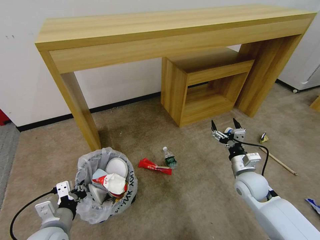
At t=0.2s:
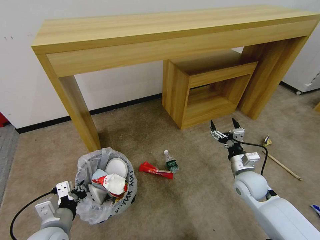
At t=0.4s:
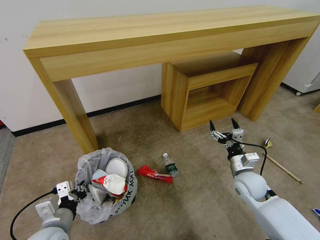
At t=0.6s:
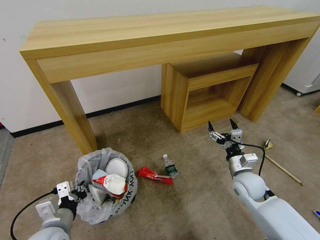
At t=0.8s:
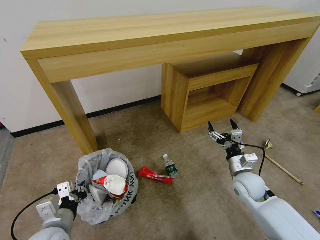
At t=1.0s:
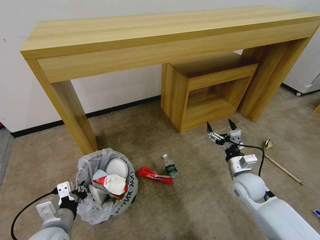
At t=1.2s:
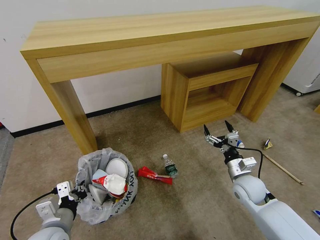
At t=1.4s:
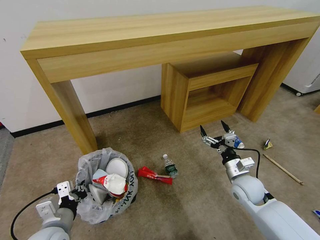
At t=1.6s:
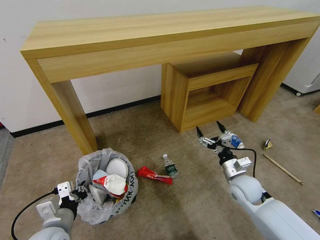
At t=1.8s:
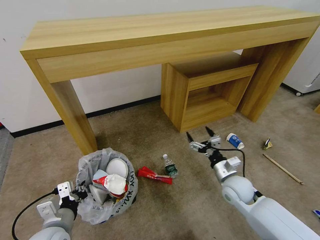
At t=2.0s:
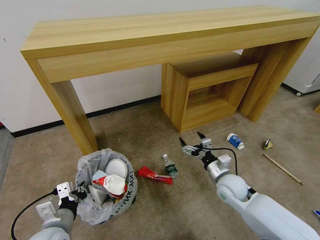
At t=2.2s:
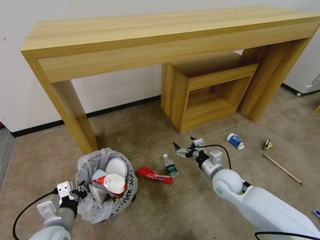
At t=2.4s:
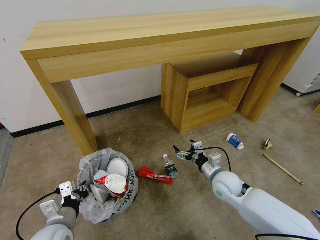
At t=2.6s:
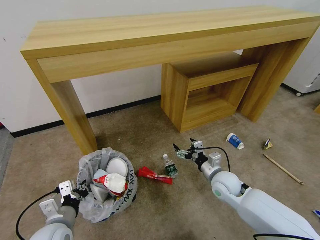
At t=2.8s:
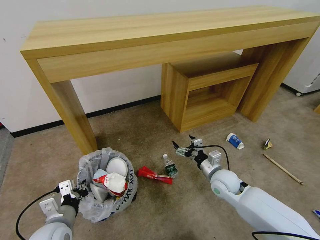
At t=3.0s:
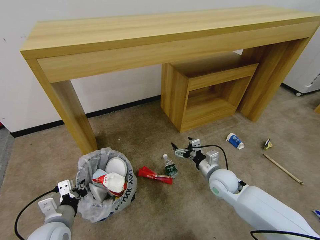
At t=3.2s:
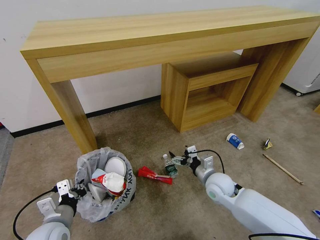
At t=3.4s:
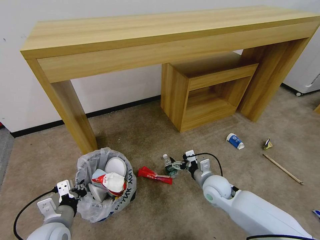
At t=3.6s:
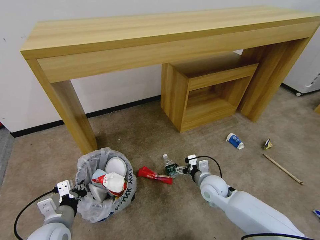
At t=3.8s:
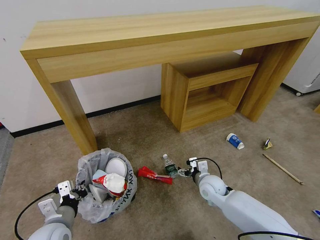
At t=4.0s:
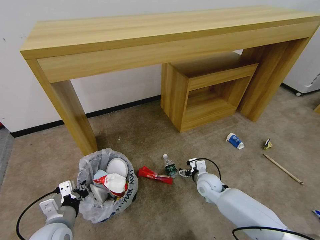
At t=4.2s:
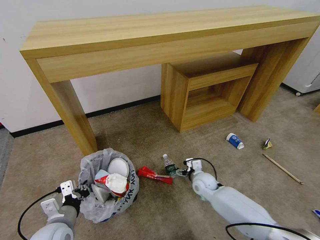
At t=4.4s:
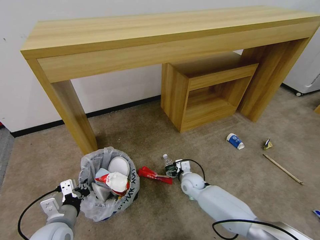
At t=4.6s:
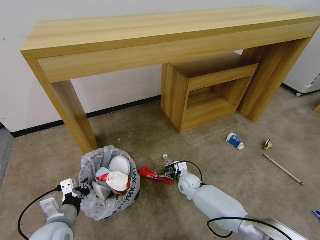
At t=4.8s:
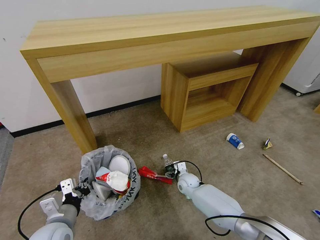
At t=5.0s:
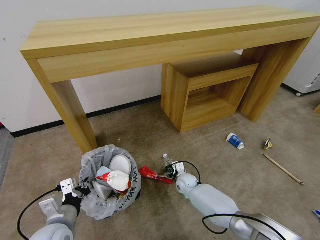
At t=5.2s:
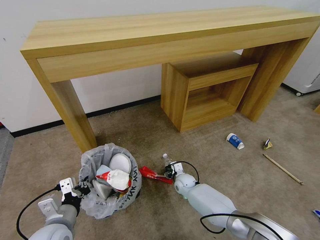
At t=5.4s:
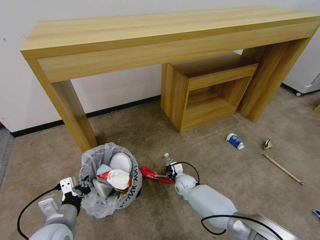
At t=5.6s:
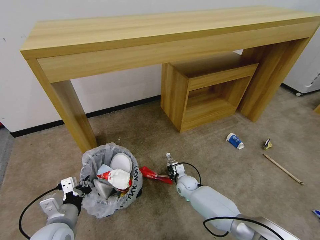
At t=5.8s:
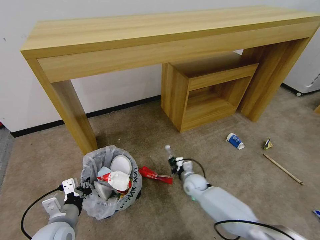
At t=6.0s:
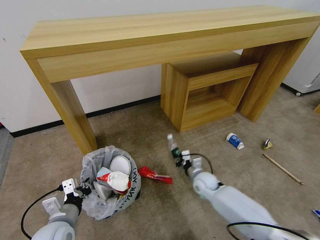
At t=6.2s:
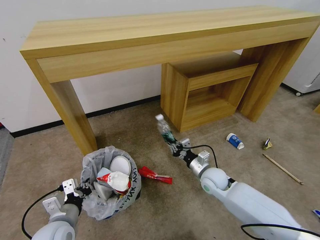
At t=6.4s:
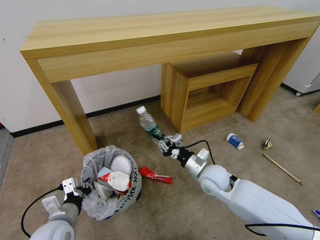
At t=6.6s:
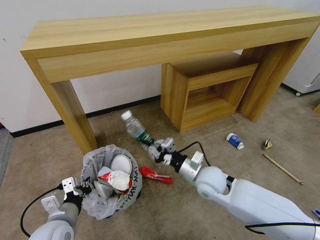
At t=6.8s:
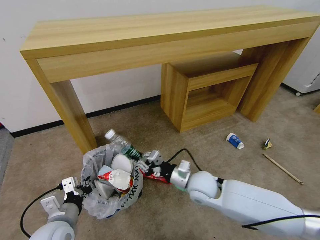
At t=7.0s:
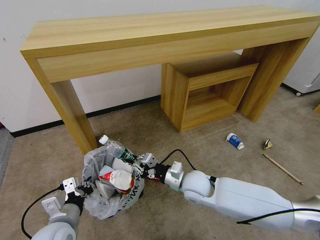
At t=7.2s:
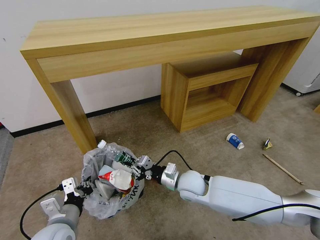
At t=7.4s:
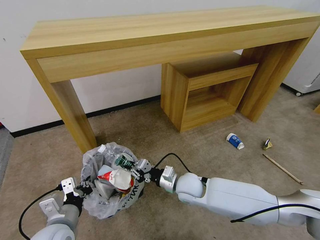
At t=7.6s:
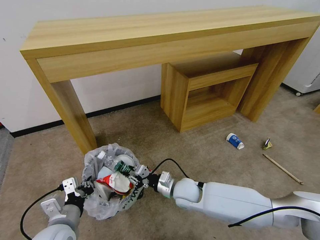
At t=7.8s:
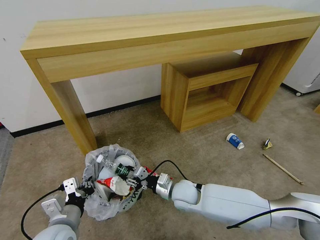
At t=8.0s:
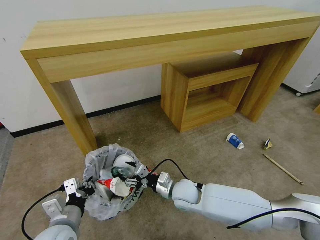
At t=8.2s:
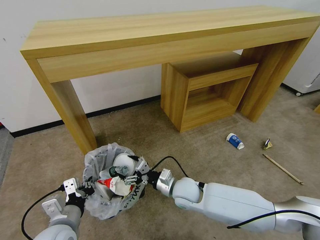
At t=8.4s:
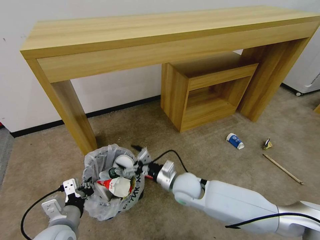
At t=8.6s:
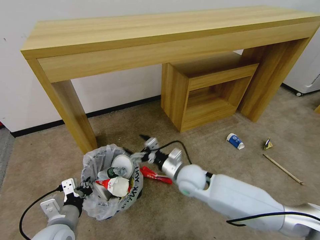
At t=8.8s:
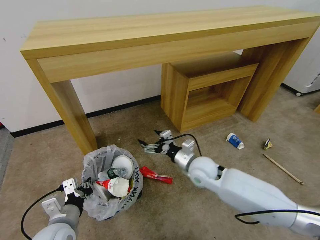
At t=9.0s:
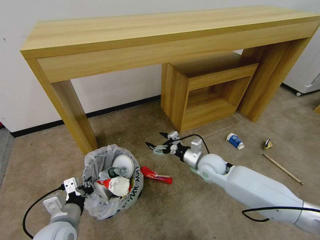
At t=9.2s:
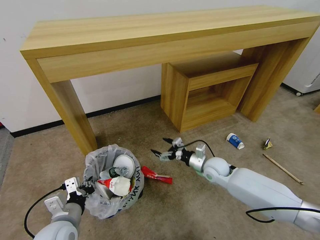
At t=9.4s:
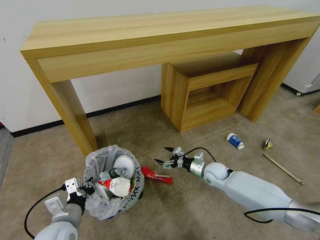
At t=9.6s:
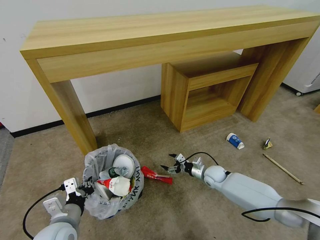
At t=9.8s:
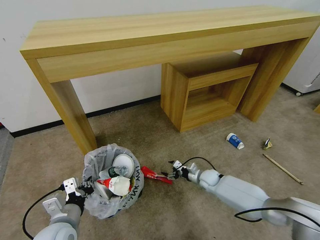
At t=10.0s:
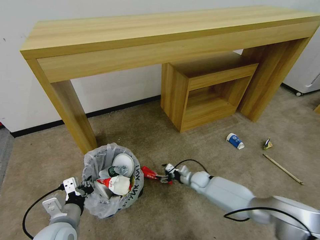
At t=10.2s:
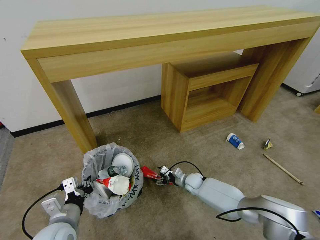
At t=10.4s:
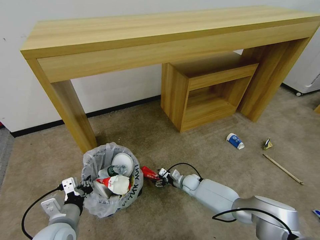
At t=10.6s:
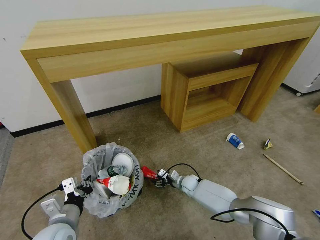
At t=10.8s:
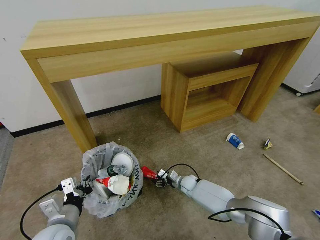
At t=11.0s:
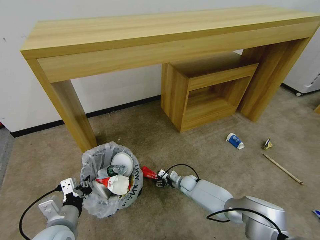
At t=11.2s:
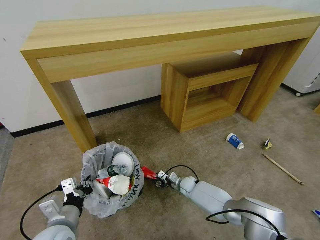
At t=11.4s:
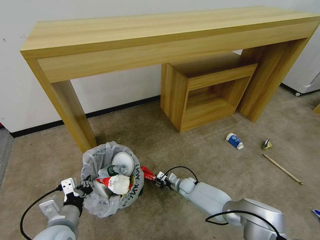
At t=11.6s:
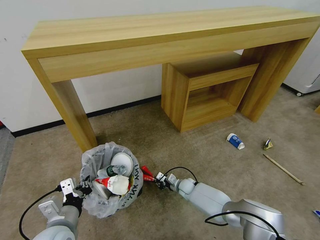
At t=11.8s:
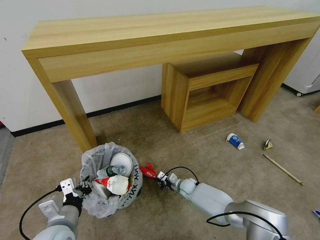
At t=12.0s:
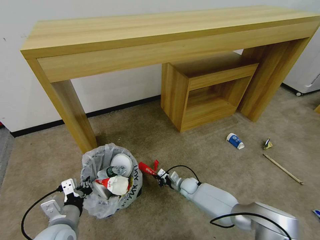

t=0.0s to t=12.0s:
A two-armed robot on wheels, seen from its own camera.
Task of the whole recording: Pick up the trash bin and place the garbage on the floor into it.
t=1.6s to t=3.0s: The right gripper is displaced to the left by some 5 cm.
t=3.0s to t=4.4s: The right gripper is displaced downward and to the left by approximately 15 cm.
t=4.4s to t=6.0s: The right gripper is displaced to the right by about 5 cm, and closes its fingers.
t=6.0s to t=7.6s: The right gripper moves to the left, backward and upward, about 15 cm.
t=7.6s to t=9.0s: The right gripper shifts approximately 15 cm to the right, forward and upward, and opens its fingers.
t=9.0s to t=10.4s: The right gripper heads downward, covering approximately 25 cm.
t=10.4s to t=12.0s: The right gripper closes.

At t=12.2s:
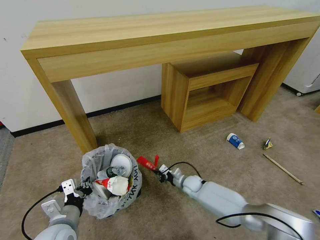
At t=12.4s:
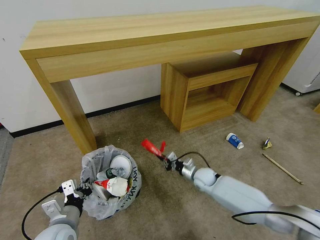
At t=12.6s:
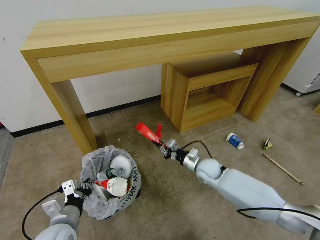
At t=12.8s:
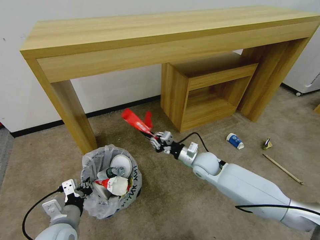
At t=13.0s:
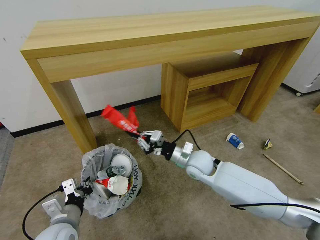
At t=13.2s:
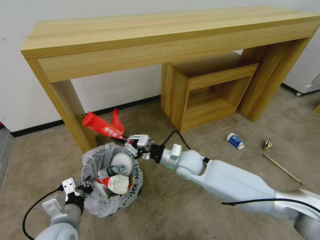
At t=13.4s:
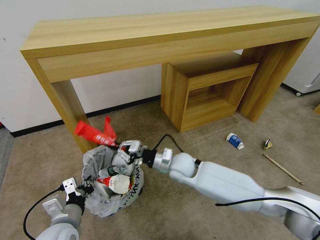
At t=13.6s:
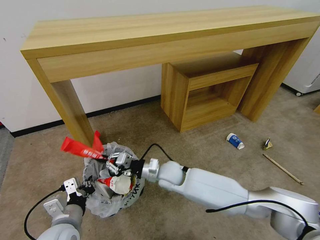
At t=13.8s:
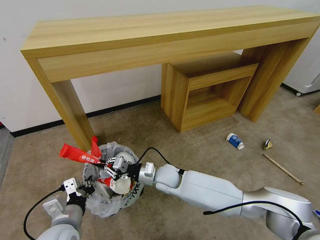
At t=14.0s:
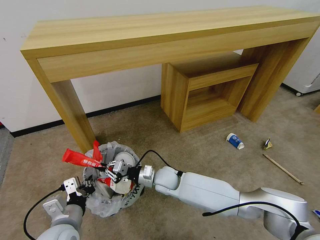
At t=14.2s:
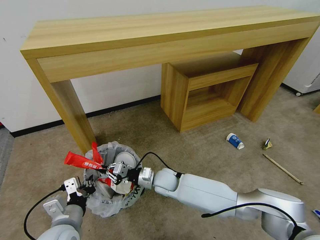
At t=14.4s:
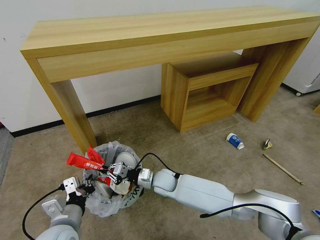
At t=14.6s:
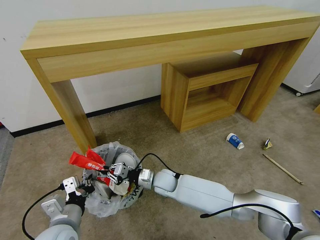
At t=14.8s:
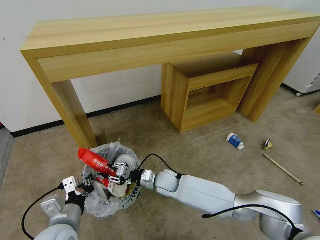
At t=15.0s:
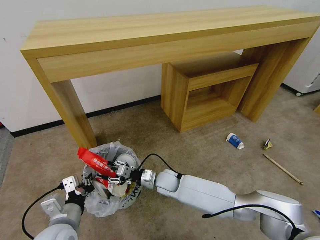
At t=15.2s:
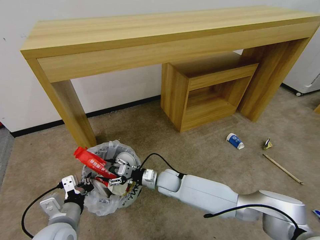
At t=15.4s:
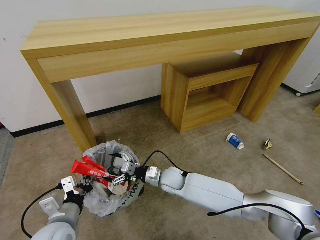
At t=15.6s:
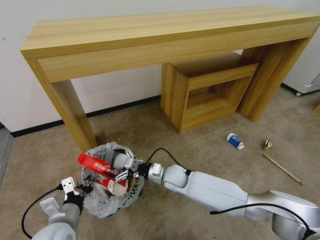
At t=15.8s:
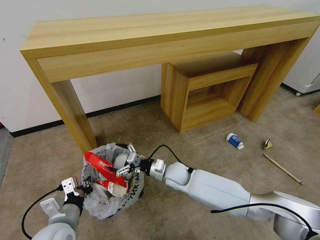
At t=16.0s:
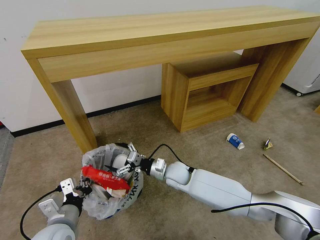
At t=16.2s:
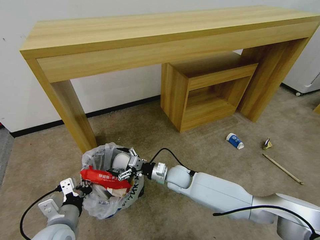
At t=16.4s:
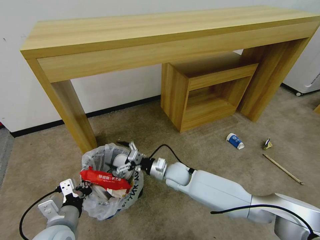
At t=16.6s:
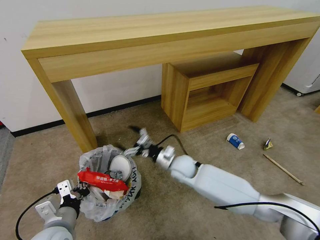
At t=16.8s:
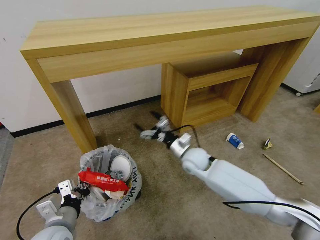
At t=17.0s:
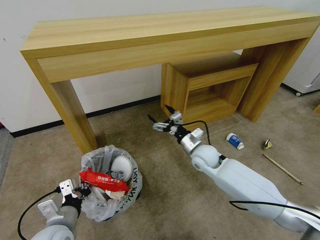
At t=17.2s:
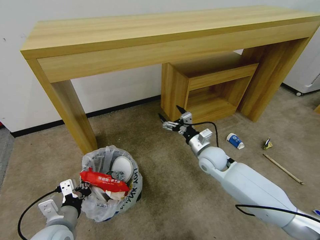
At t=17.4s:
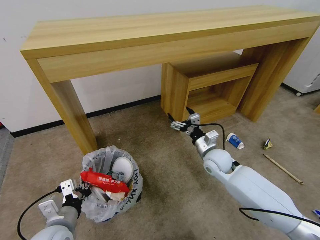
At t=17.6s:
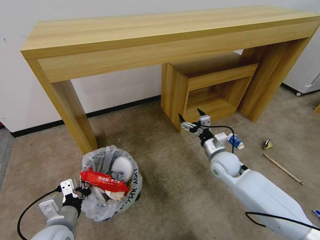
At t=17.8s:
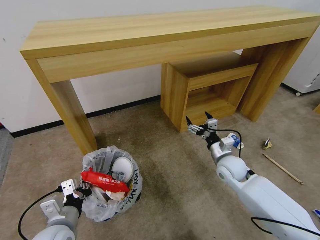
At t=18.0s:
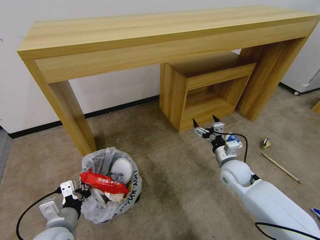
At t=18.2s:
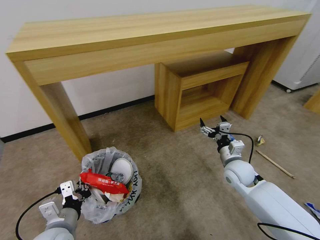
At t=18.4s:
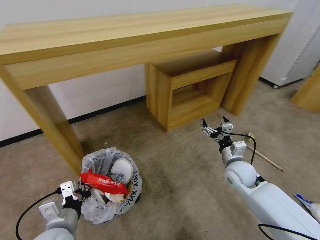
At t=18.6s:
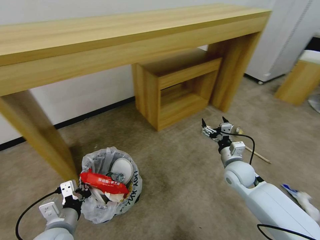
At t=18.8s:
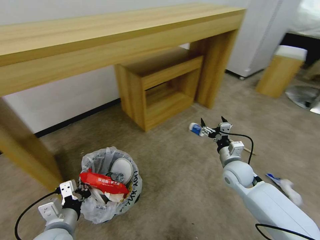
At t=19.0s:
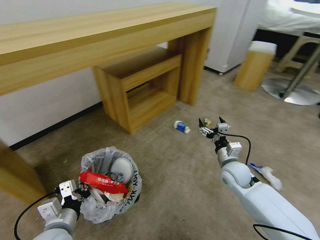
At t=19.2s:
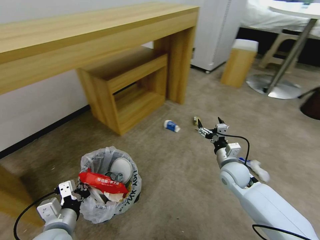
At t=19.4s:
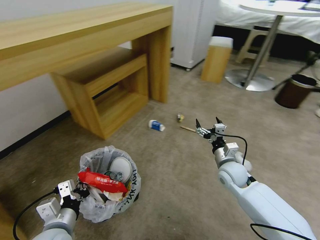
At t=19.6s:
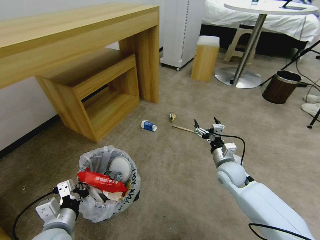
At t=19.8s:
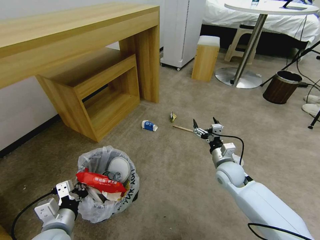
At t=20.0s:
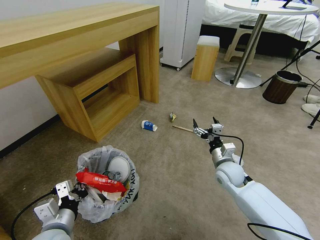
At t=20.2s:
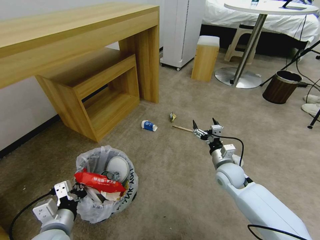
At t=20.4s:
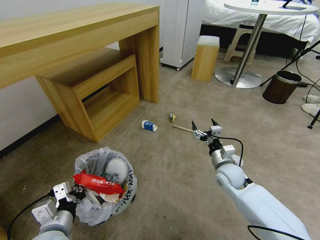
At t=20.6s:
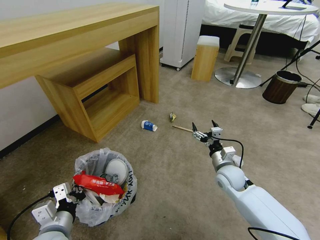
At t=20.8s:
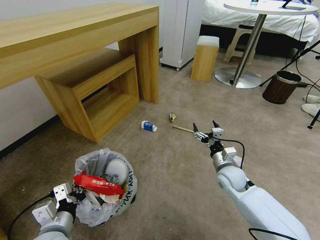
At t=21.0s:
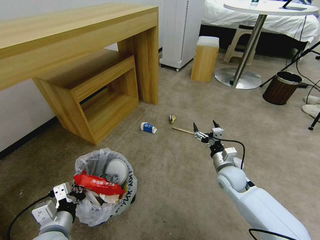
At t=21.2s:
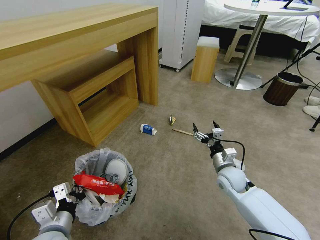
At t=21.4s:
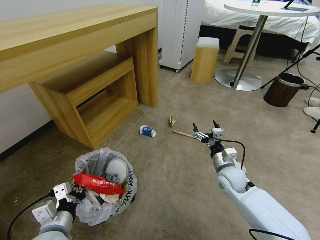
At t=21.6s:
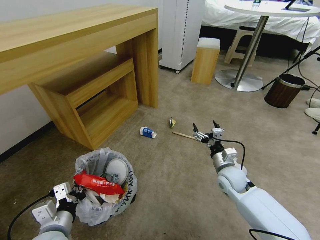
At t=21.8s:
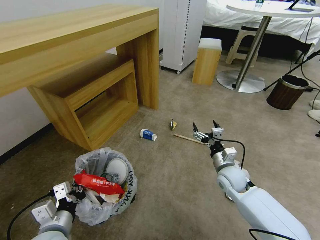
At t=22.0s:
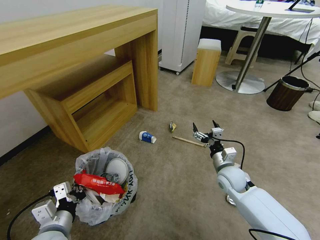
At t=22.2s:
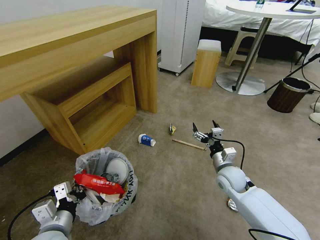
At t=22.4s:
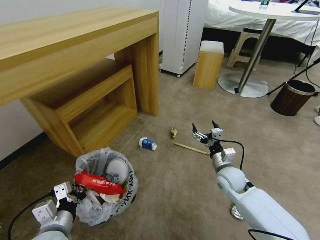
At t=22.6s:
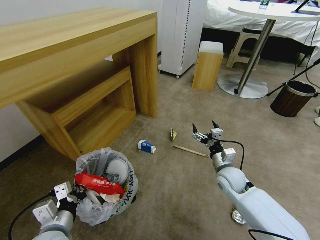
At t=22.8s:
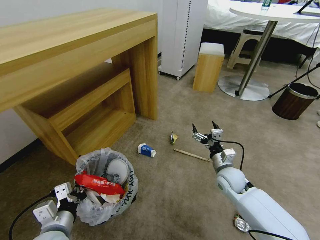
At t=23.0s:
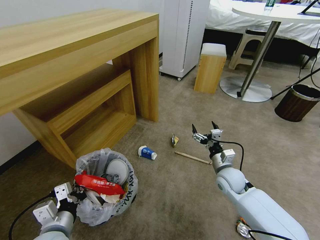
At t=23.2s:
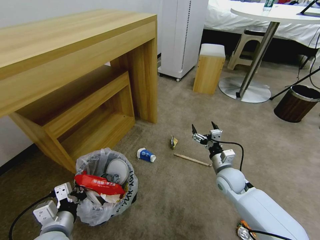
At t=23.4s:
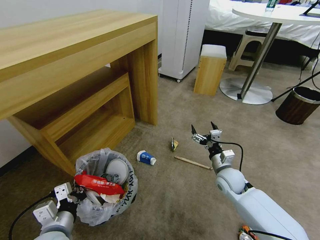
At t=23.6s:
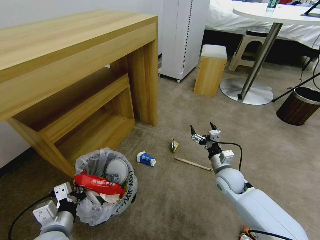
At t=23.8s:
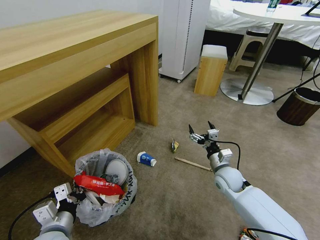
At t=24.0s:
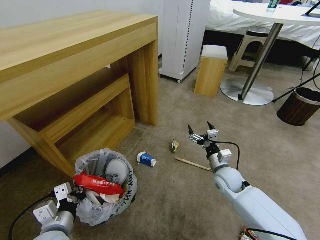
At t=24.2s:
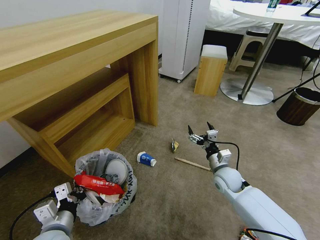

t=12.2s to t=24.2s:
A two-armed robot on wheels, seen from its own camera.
Task of the whole recording: Pick up the trash bin and place the garbage on the floor into it.
t=12.2s to t=13.8s: The right gripper is displaced upward and to the left by about 20 cm.
t=13.8s to t=15.2s: The right gripper opens.
t=15.2s to t=16.6s: The right gripper moves upward and to the right, about 10 cm.
t=16.6s to t=18.2s: The right gripper is displaced to the right by some 20 cm.
t=19.8s to t=21.2s: There are only small adjustments of the grippers.
